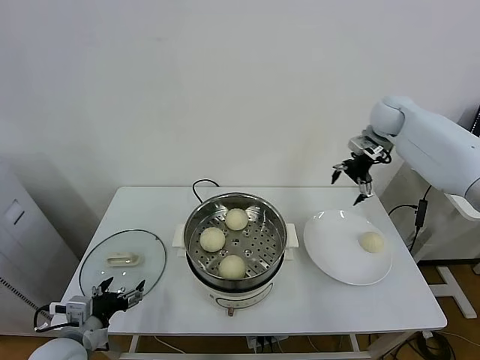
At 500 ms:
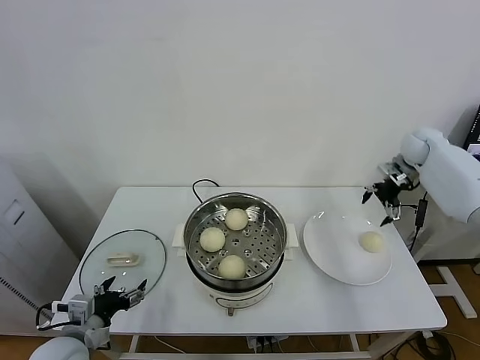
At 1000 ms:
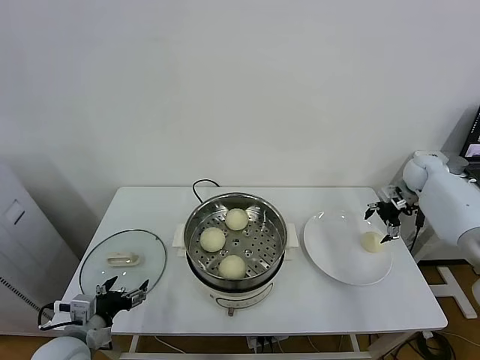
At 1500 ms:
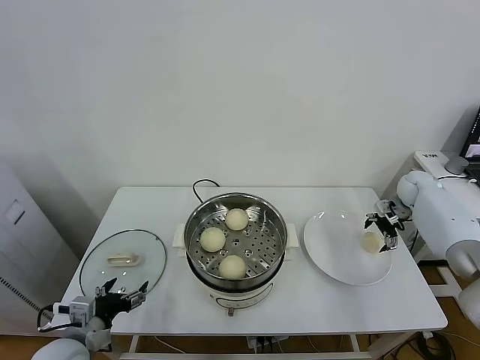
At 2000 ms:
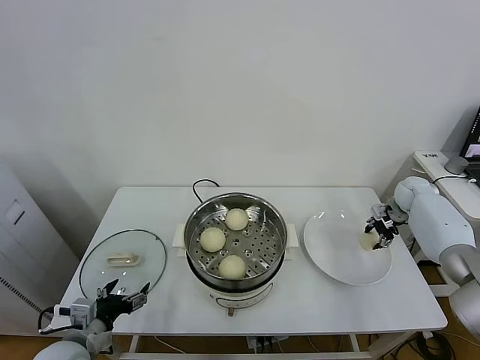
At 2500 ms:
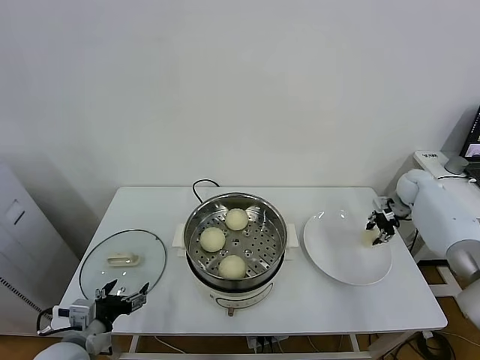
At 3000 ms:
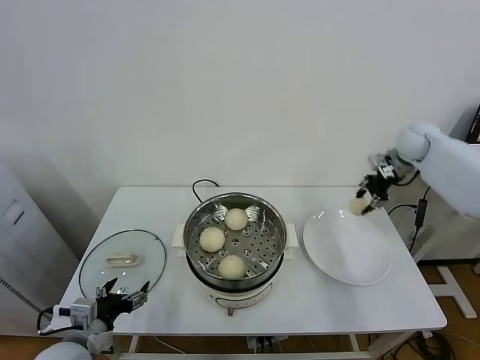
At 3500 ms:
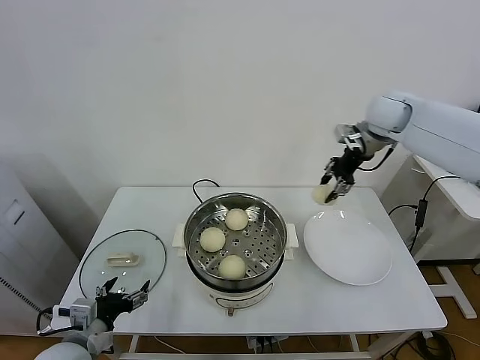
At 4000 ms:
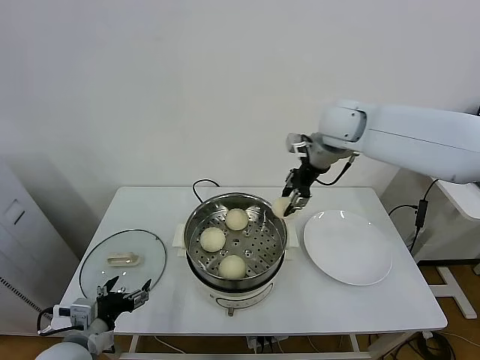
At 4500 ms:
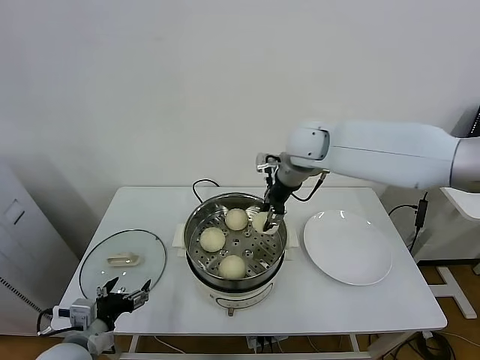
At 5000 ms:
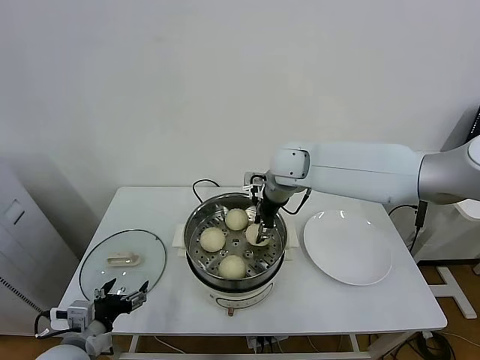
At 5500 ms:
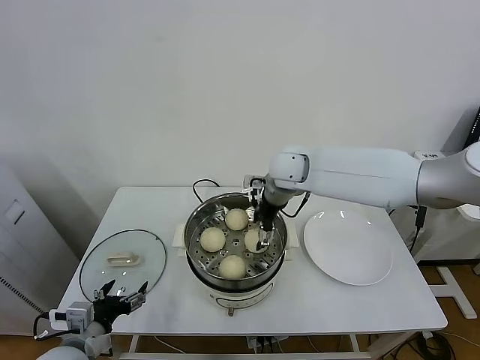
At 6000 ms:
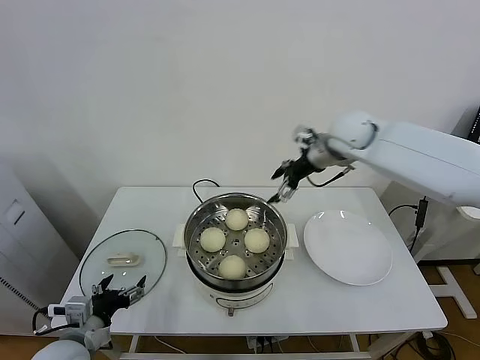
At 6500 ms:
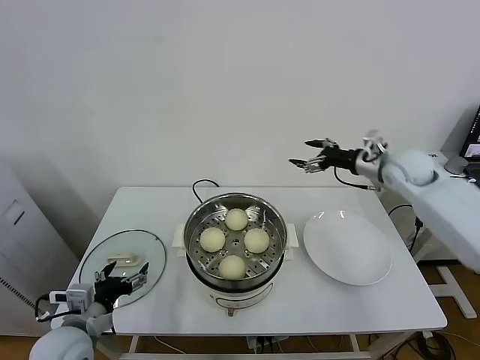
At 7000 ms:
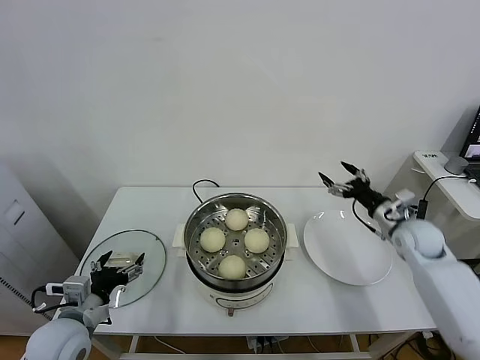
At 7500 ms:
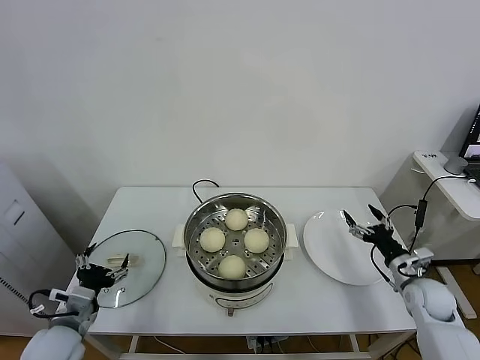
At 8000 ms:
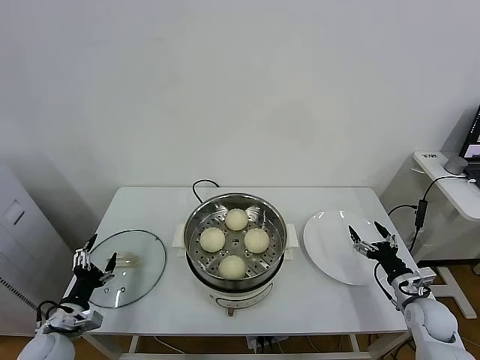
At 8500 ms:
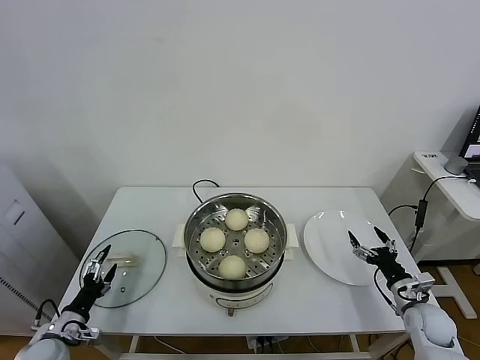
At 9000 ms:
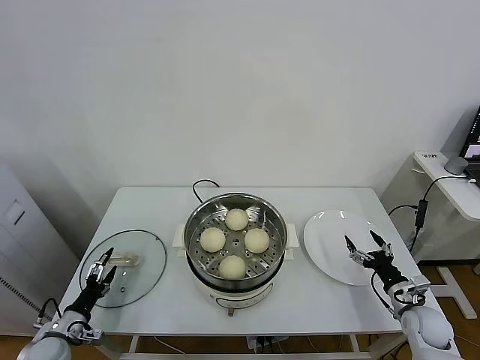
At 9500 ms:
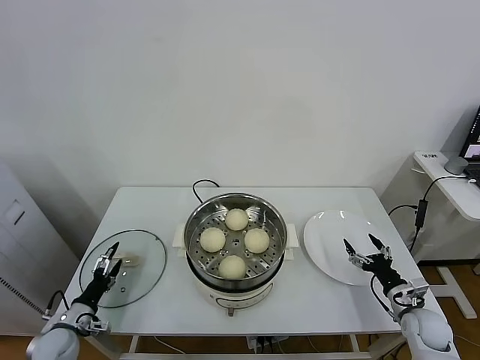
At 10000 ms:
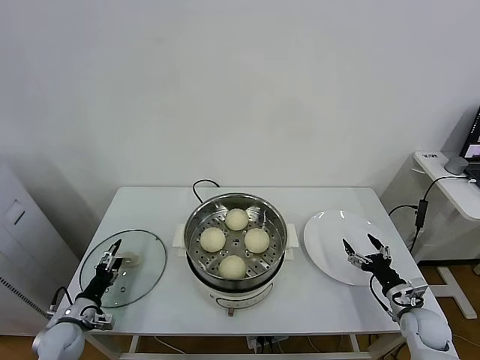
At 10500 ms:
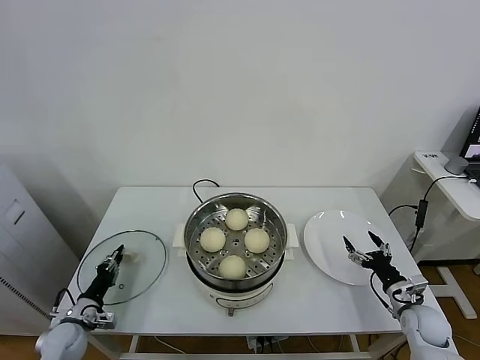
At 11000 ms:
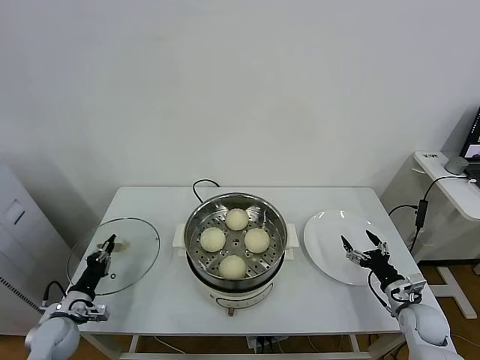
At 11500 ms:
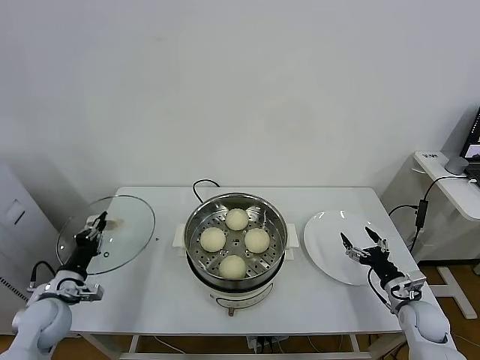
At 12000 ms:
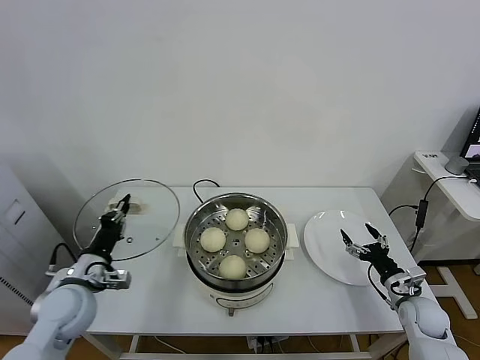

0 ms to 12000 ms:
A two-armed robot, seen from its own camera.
Task of the whole recording: take steamed baozi put them in steamer.
Step, 0 ms to 2000 ms: Grasp the baozi in the plate with right gripper.
Step, 2500 ms to 5500 ms: Place the baozi on the steamer with right gripper.
Step, 6000 ms to 10500 ms: Grasp the pot lid with left gripper.
0 ms to 2000 ms: The right gripper moves downward and to the right, roughly 25 cm, and closes up.
2000 ms to 4000 ms: The right gripper shifts roughly 40 cm to the left and upward.
4000 ms to 6000 ms: The right gripper moves approximately 10 cm to the left and comes back, and opens up.
6000 ms to 8000 ms: The left gripper goes roughly 10 cm to the left and downward; the right gripper travels downward, backward and to the right by approximately 50 cm.
8000 ms to 10000 ms: The left gripper heads downward, covering roughly 10 cm.
10000 ms to 12000 ms: The left gripper moves upward and to the right, some 20 cm, and closes its fingers.

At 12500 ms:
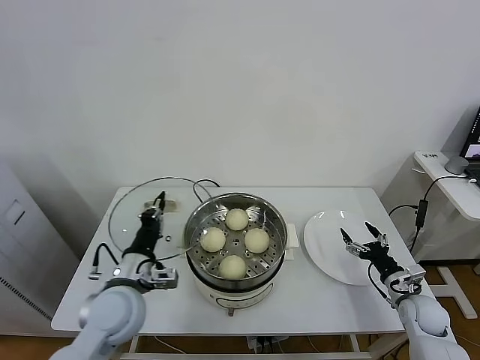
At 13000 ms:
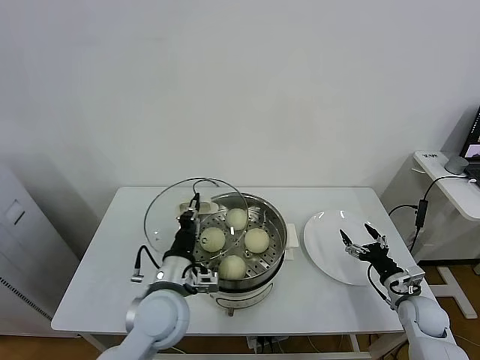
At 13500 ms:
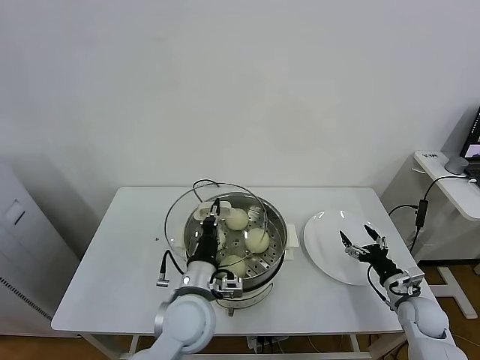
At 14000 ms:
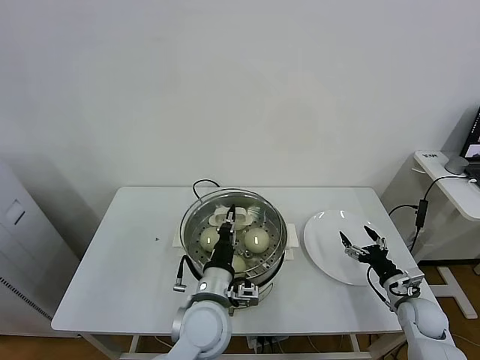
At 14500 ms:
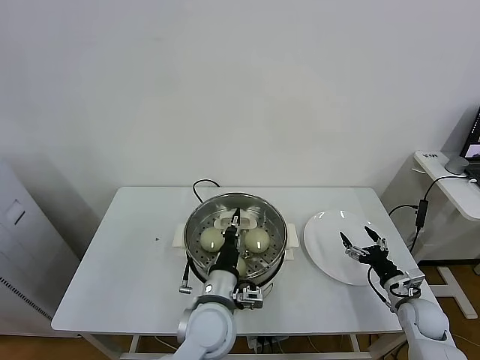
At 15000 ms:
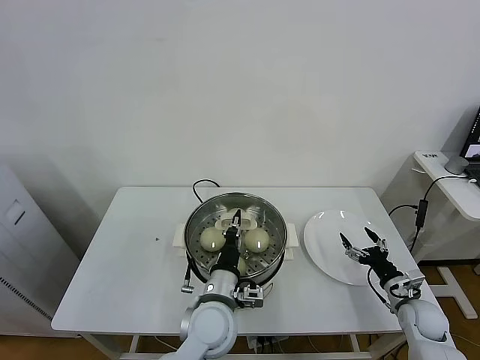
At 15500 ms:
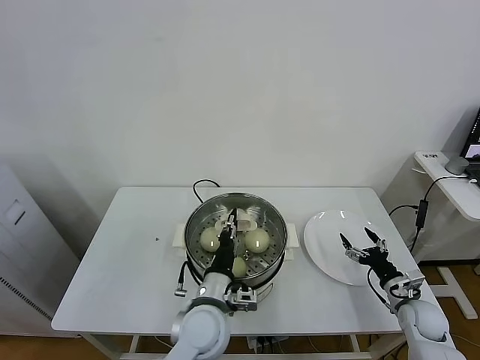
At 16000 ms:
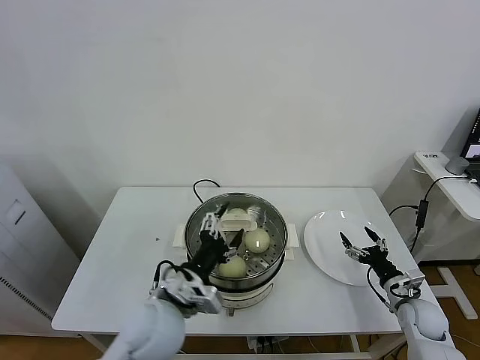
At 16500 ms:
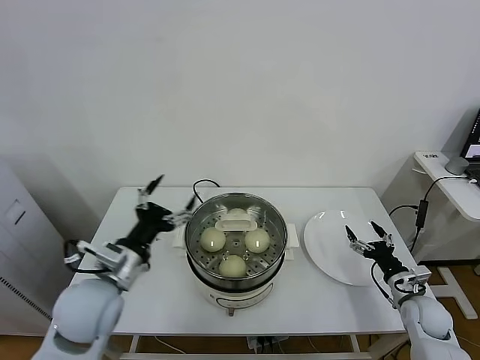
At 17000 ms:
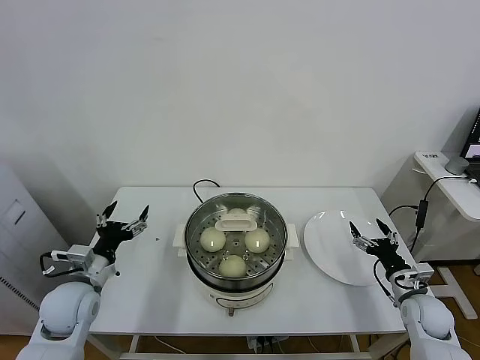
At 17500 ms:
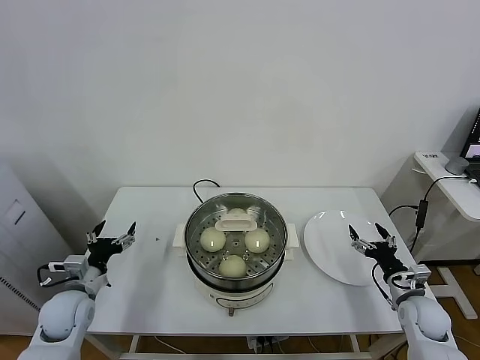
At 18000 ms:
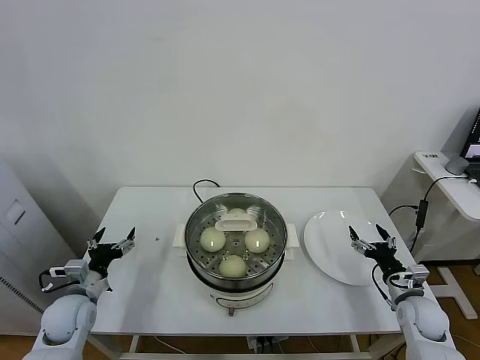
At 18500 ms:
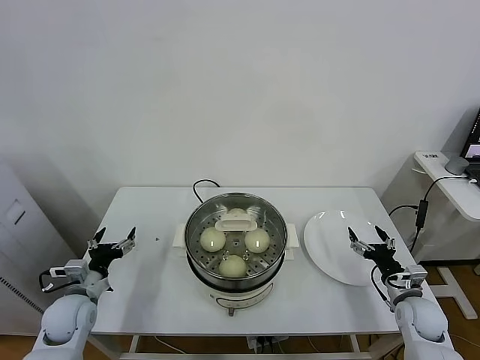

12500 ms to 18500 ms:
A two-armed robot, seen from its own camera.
Task of the whole recording: take steamed baozi put them in steamer.
Step, 12500 ms to 16000 ms: Place the pot lid on the steamer with left gripper.
12500 ms to 14500 ms: The left gripper shifts approximately 15 cm to the right.
14500 ms to 16500 ms: The left gripper shifts roughly 20 cm to the left and upward, and opens.
16500 ms to 18500 ms: The left gripper moves downward and to the left, about 20 cm.

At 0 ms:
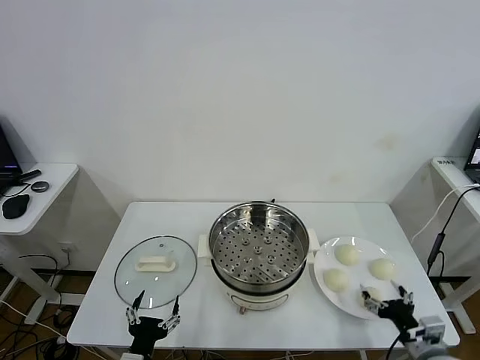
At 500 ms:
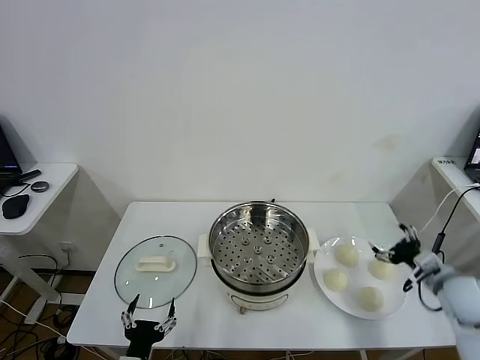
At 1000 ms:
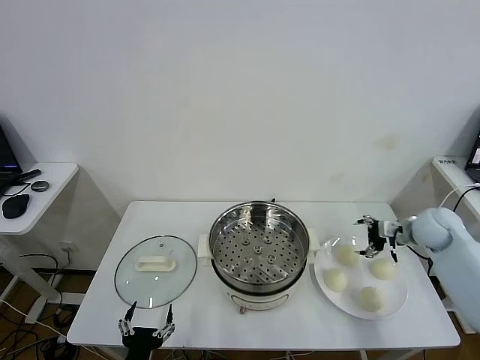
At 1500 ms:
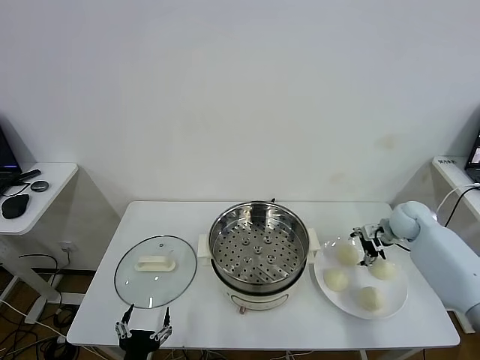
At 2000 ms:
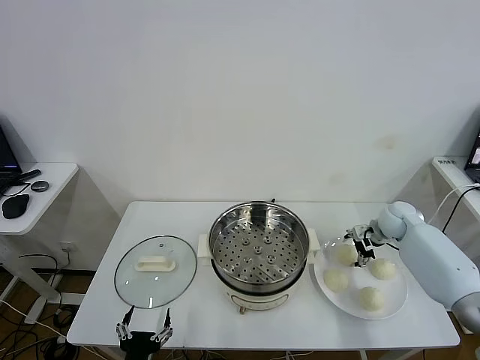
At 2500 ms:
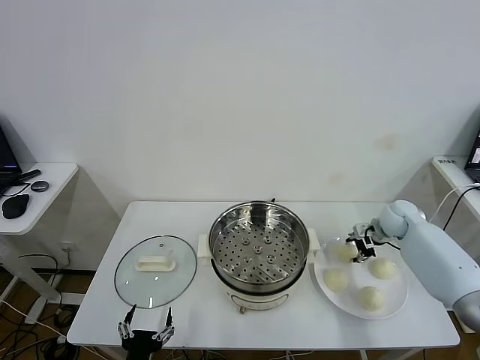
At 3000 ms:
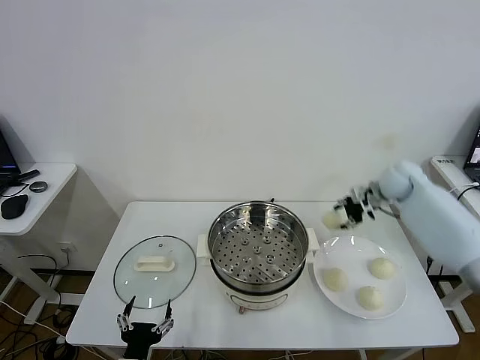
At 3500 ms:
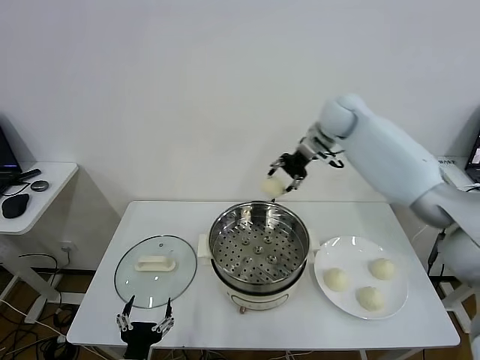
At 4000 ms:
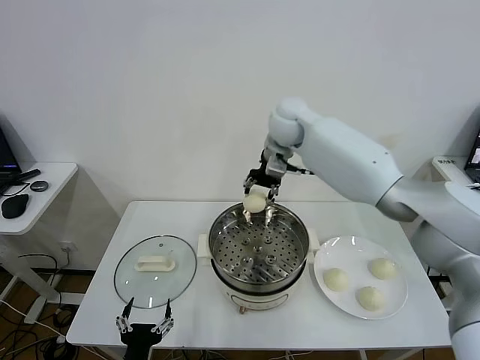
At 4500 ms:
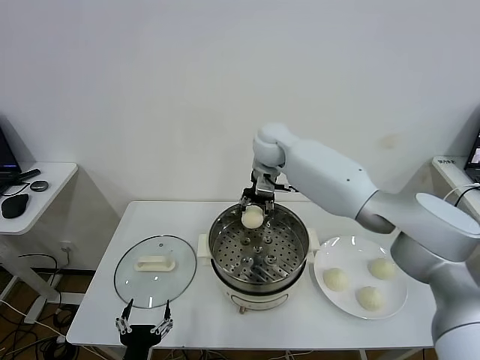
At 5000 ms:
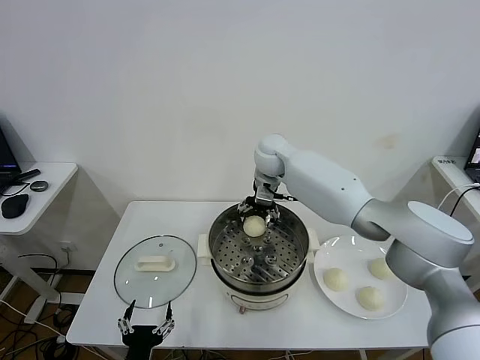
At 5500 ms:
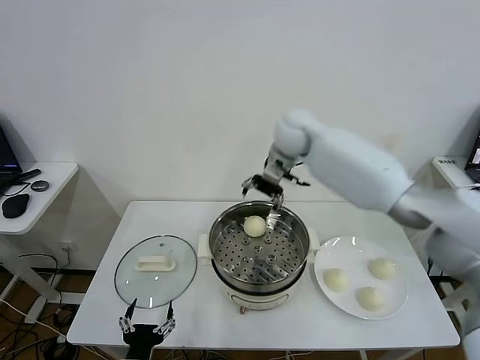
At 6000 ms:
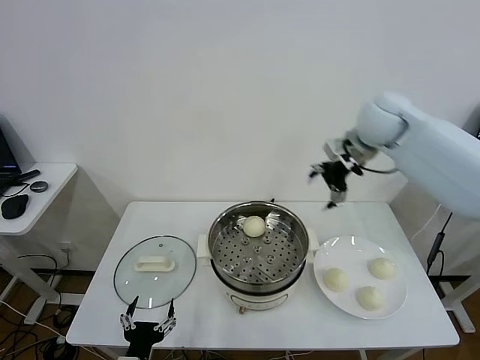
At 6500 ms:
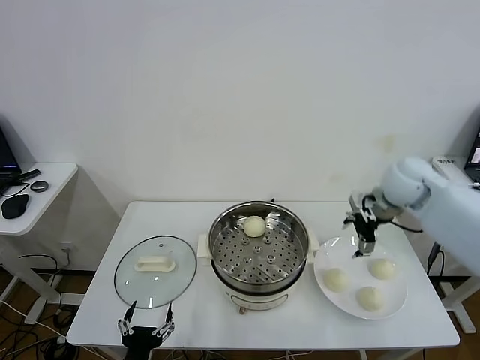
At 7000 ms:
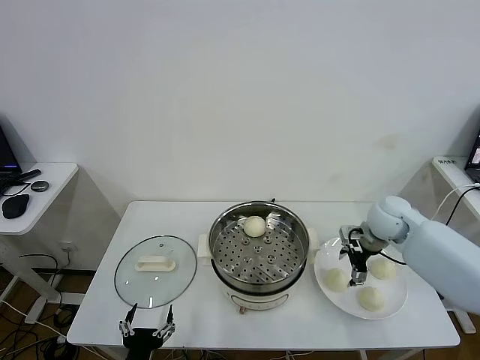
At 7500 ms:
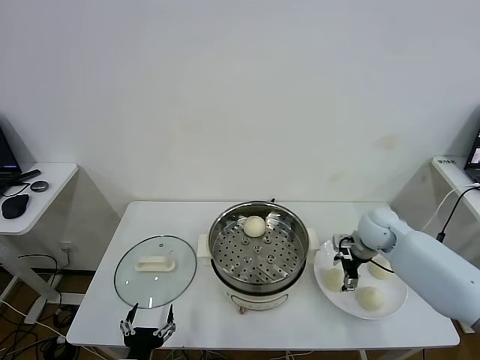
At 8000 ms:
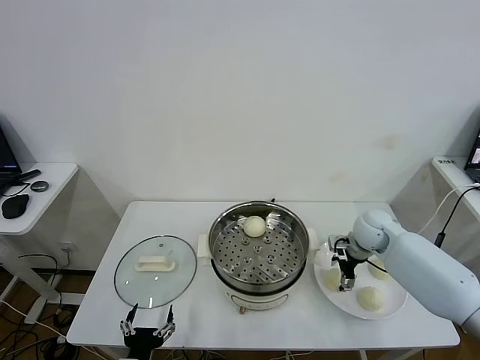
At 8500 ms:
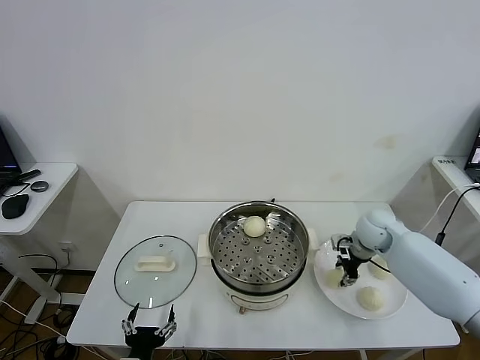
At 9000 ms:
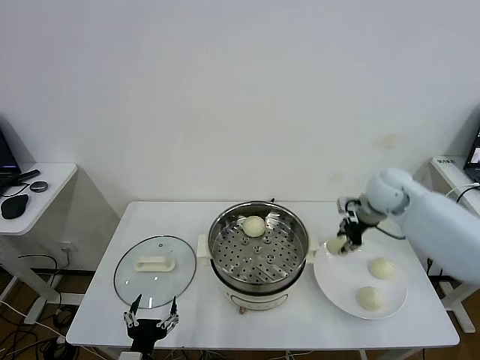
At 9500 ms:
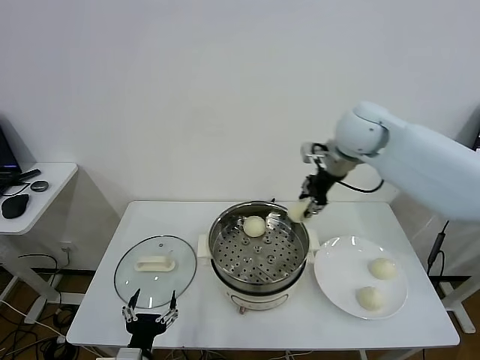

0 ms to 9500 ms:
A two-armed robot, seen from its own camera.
Task of the whole recording: take steamed baozi put them in steamer.
Step, 0 ms to 2000 ms: Grasp the baozi in the plate with right gripper.
Step, 2500 ms to 5000 ms: Place the baozi on the steamer with right gripper.
Step, 5500 ms to 8000 ms: Grasp the baozi in the plate with right gripper.
2000 ms to 4000 ms: The right gripper heads to the left and upward, covering some 40 cm, and closes its fingers.
4000 ms to 5500 ms: The right gripper goes downward and returns, approximately 10 cm each way, and opens its fingers.
5500 ms to 7500 ms: The right gripper heads to the right, downward and backward, covering about 30 cm.
7500 ms to 9500 ms: The right gripper moves upward and to the left, approximately 25 cm, and closes up.
